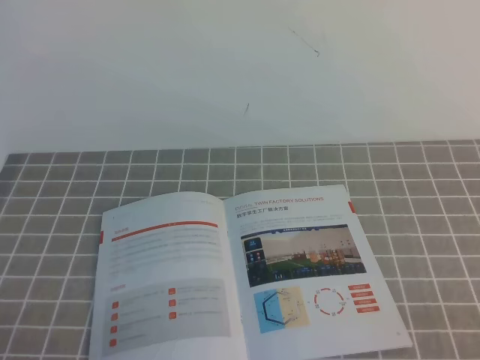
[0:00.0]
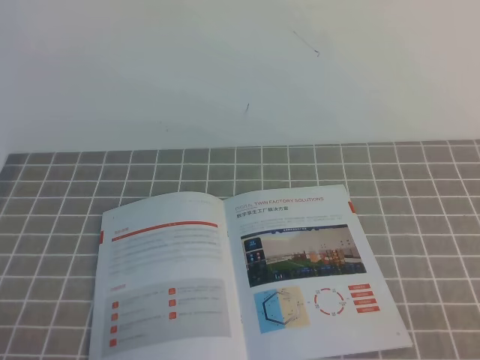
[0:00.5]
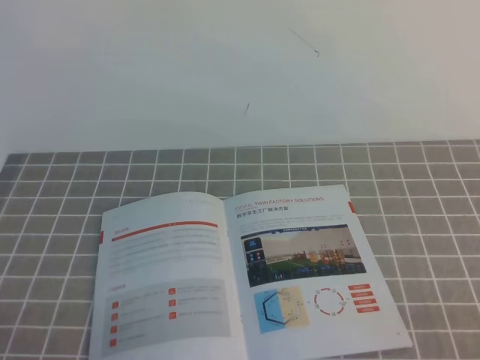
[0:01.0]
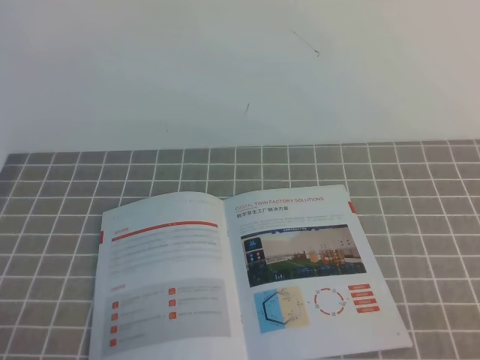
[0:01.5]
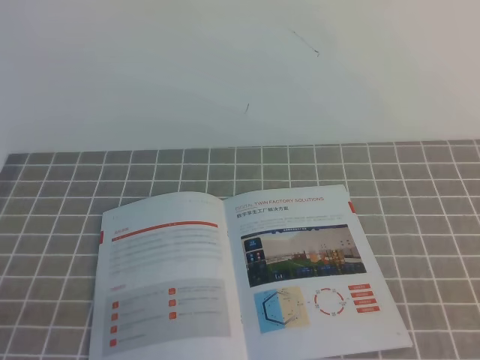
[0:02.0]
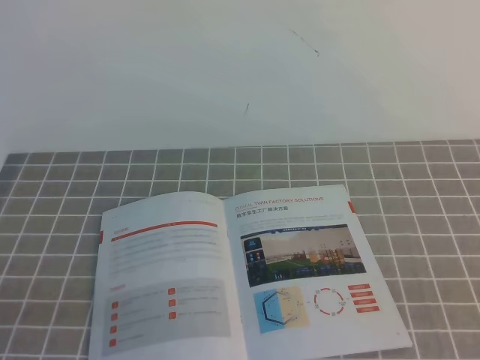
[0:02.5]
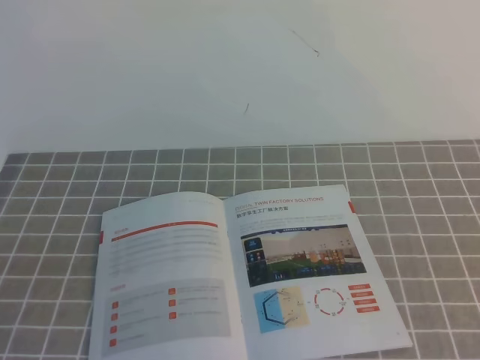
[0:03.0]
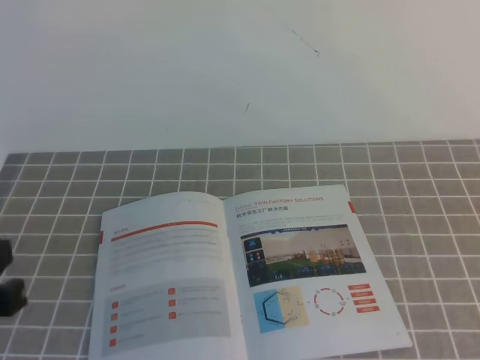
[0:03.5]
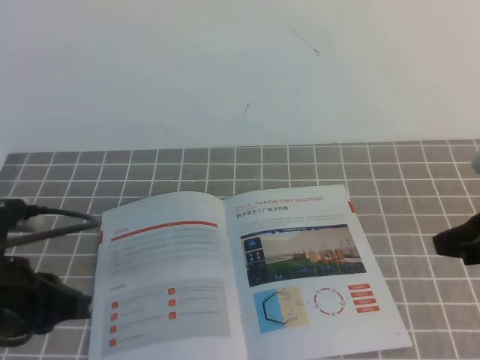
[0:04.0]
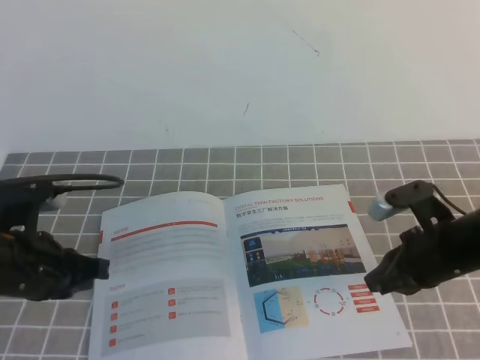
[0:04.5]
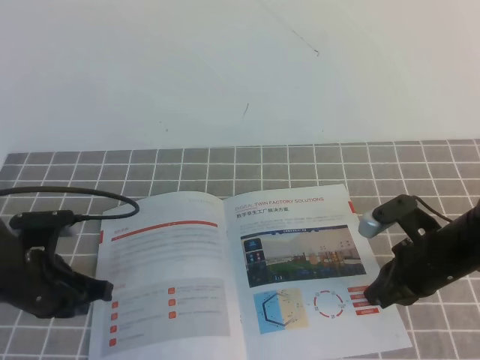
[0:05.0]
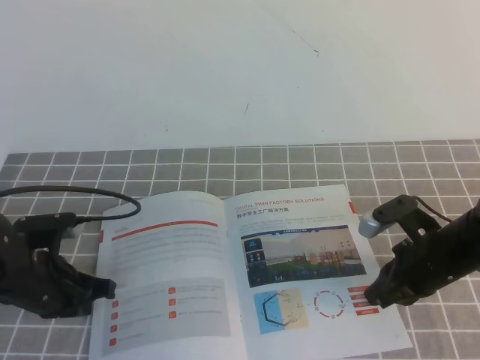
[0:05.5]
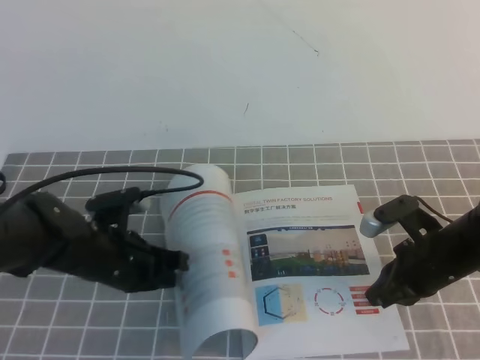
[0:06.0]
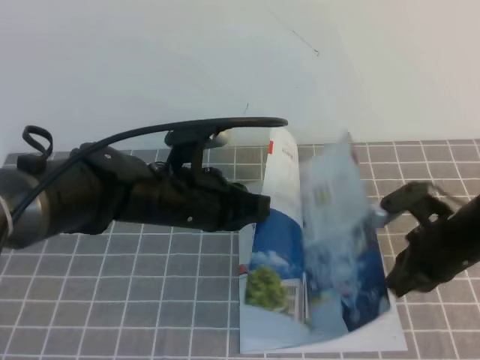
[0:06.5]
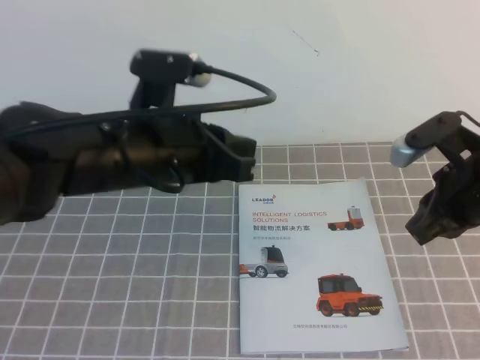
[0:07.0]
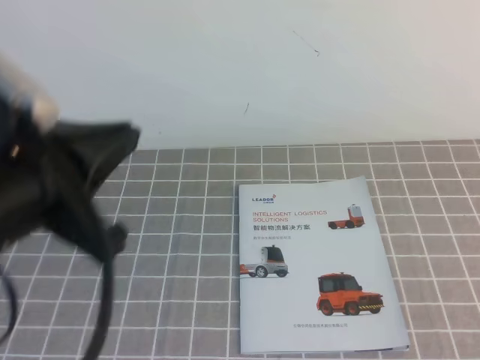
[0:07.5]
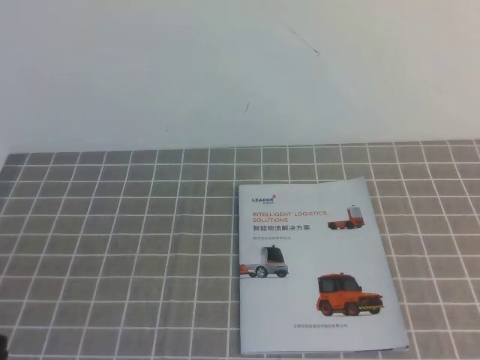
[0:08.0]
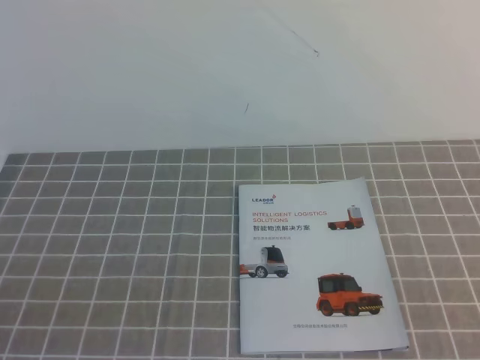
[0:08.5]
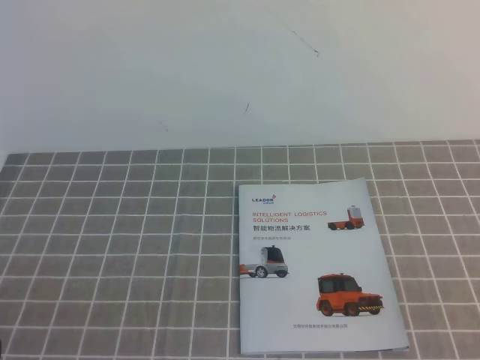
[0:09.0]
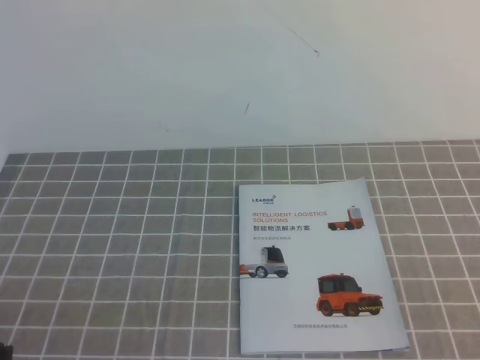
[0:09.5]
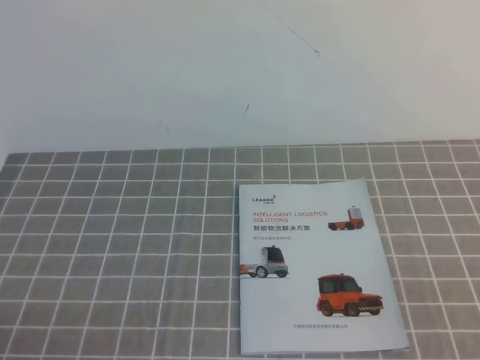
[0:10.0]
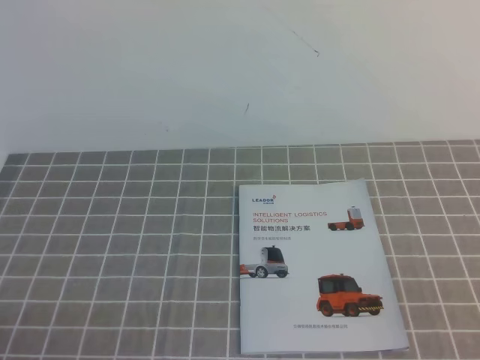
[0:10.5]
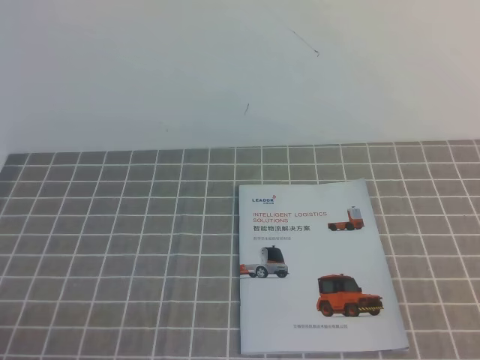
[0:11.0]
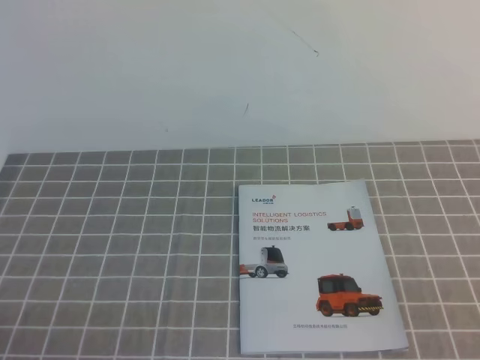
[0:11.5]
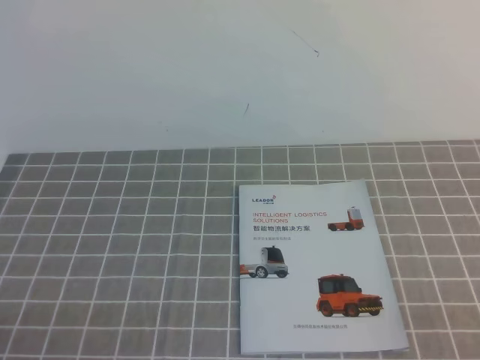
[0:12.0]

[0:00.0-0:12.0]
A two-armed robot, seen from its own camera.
Task of the whole recording: on the grey tablecloth, hold the book with one hand and close it with the other.
Step, 0:00.0 to 0:12.0: Close the open book.
0:02.0 to 0:04.0: The two grippers go some 15 cm forward.
0:04.0 to 0:06.0: The right gripper travels downward, forward and to the left by approximately 15 cm. The left gripper goes about 15 cm forward, downward and to the right.
0:06.0 to 0:08.0: The left gripper is displaced backward and upward by approximately 25 cm, while the right gripper travels upward and backward by some 35 cm.

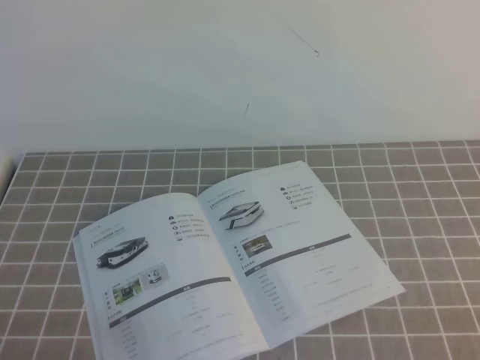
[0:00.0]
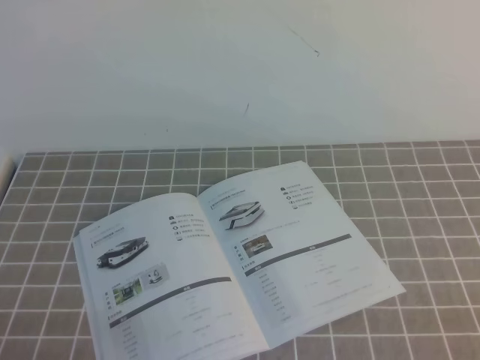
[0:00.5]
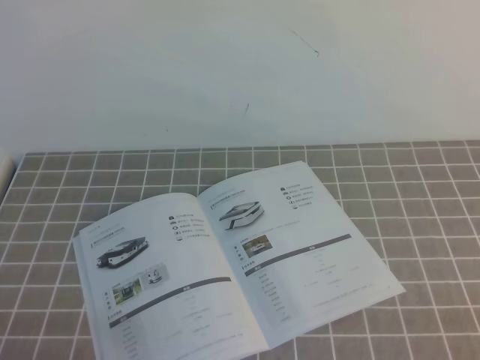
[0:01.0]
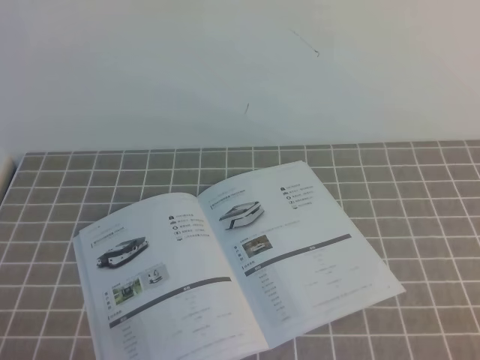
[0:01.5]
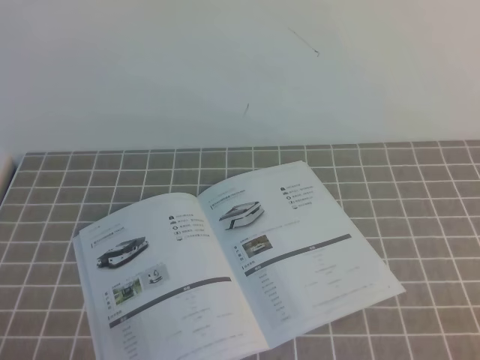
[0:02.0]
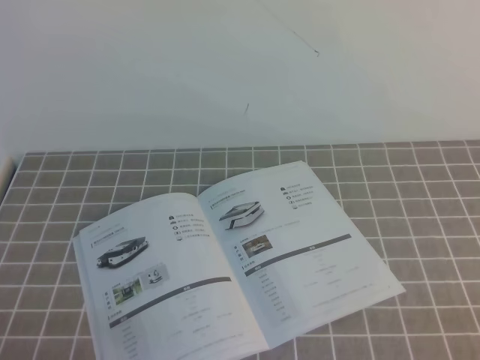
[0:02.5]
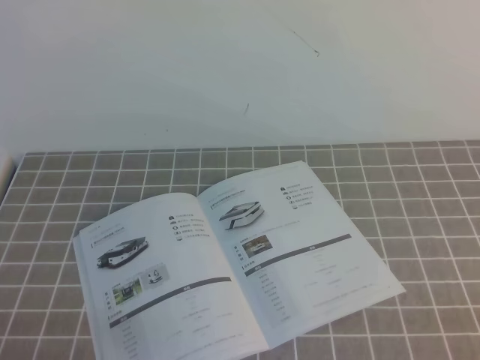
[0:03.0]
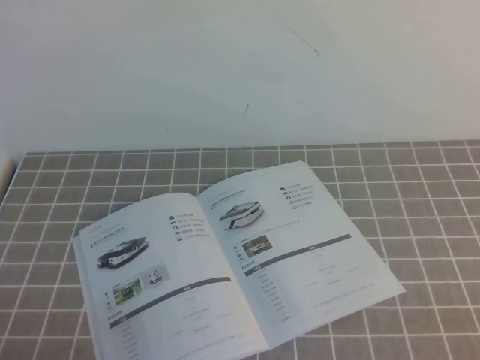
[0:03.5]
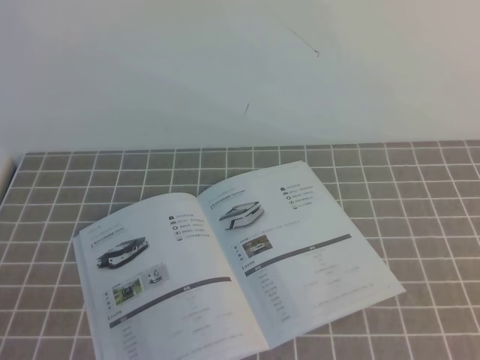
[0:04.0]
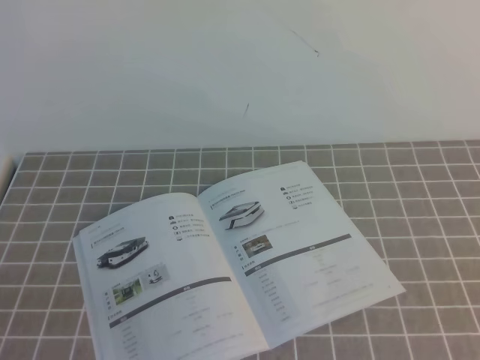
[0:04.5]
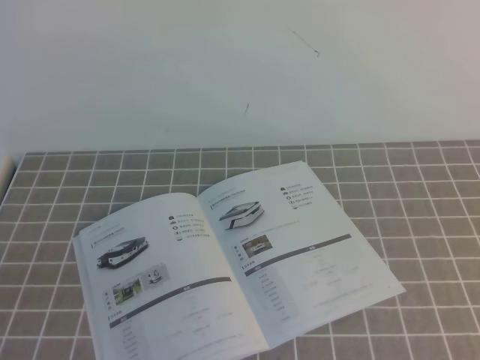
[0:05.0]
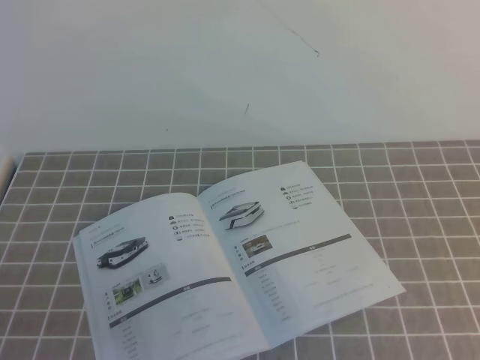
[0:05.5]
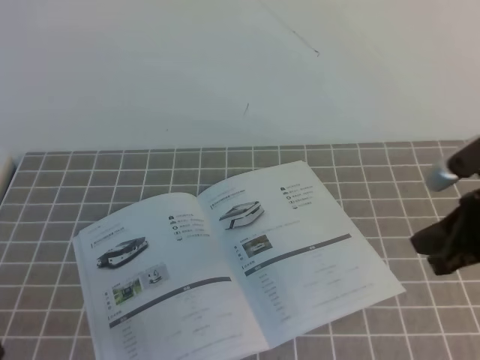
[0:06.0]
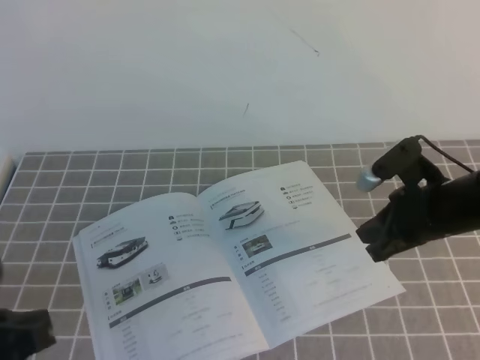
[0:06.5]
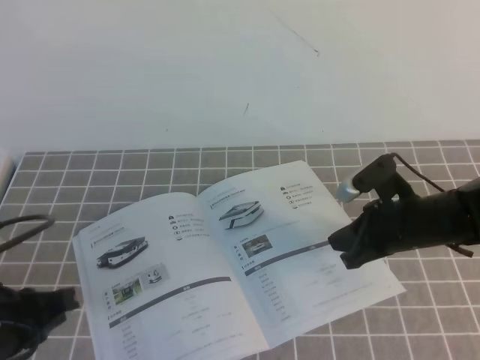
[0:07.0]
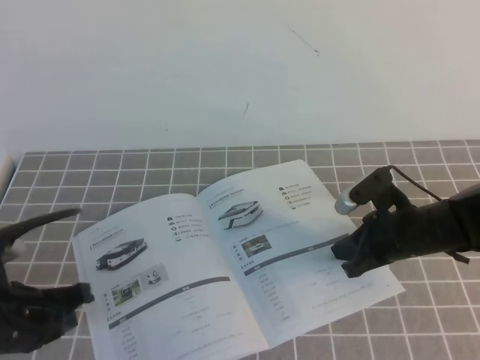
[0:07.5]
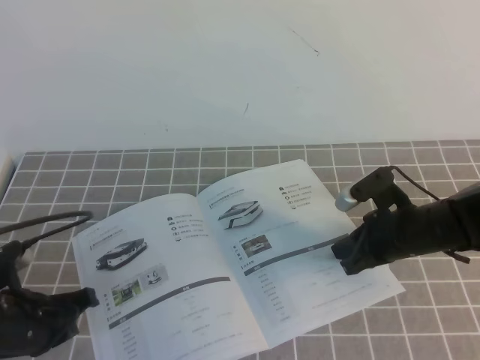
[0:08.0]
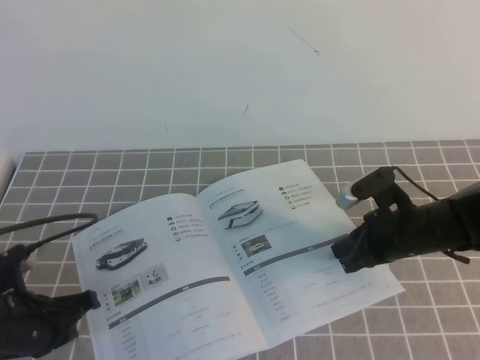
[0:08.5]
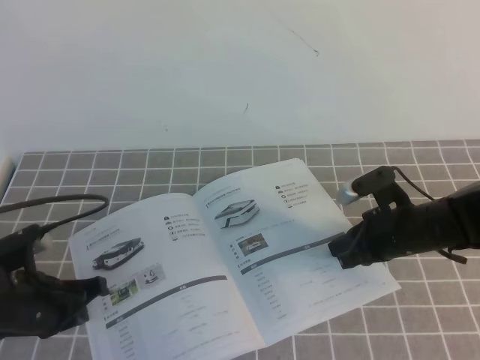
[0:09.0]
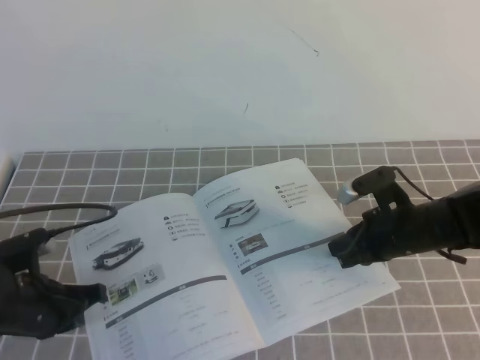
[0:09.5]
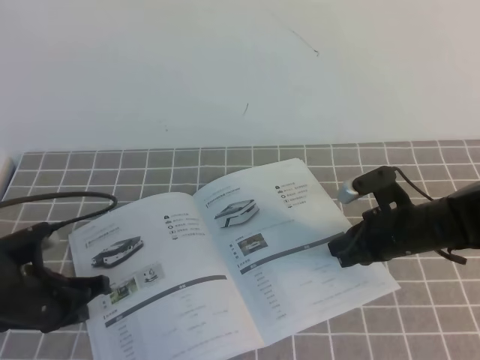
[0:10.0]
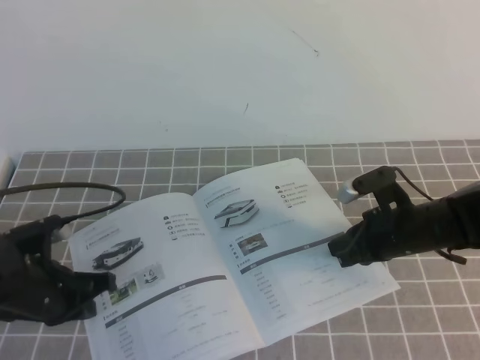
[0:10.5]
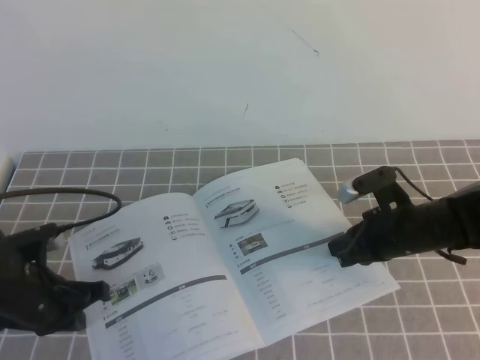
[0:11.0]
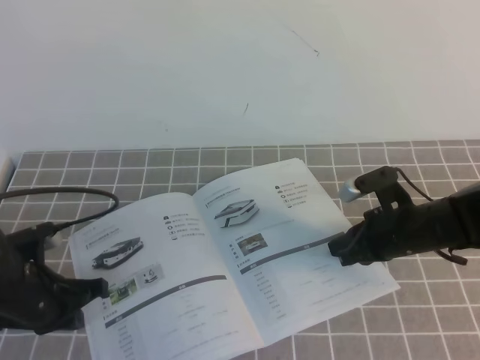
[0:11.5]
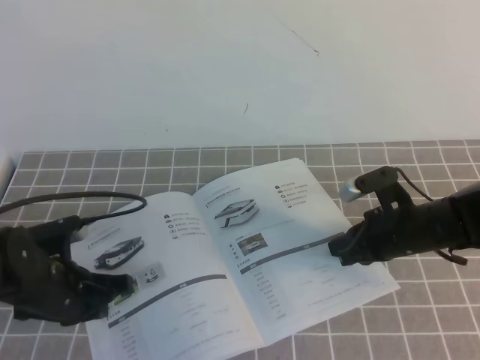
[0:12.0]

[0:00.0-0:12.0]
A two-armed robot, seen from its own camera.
Task of the whole recording: on the grey tablecloth, hold the book with one hand and close it with the other.
0:00.0 to 0:02.0: Neither gripper changes place.
0:04.0 to 0:06.0: The right gripper shifts about 25 cm forward.
0:06.0 to 0:08.0: The right gripper shifts some 15 cm downward, forward and to the left. Meanwhile the left gripper is displaced forward and downward by approximately 20 cm.
0:08.0 to 0:12.0: The grippers stay close to where they were, moving slightly.

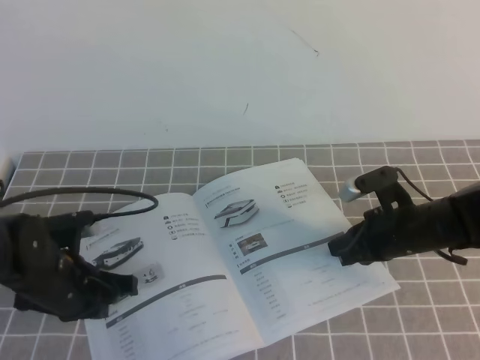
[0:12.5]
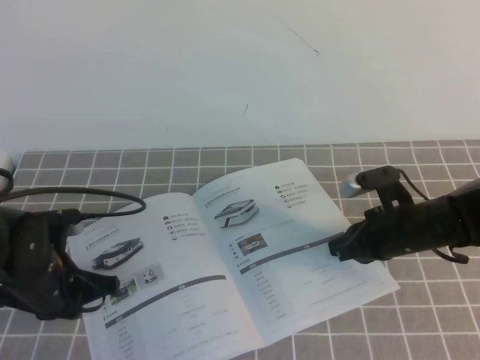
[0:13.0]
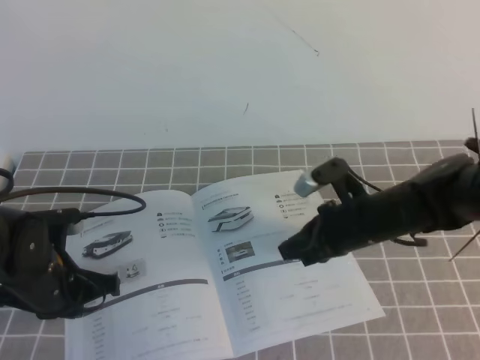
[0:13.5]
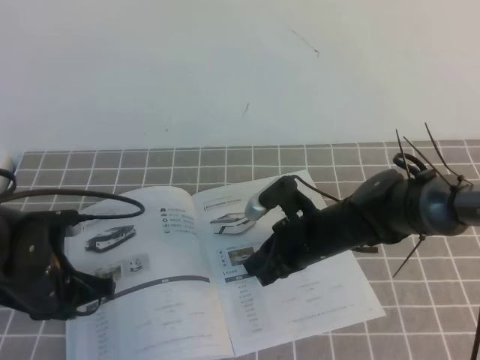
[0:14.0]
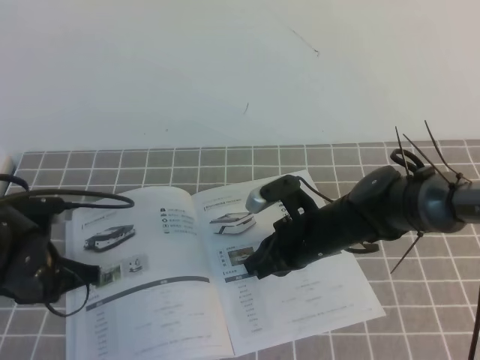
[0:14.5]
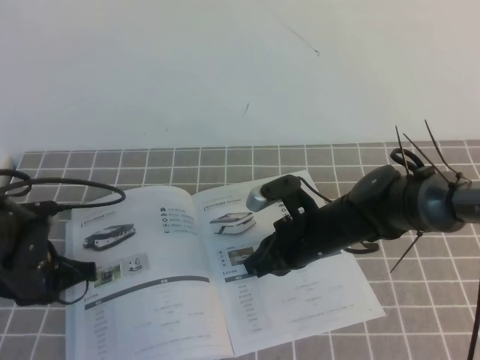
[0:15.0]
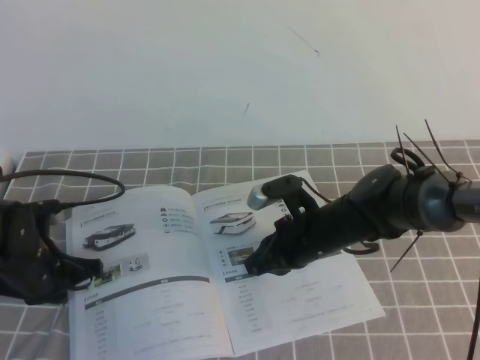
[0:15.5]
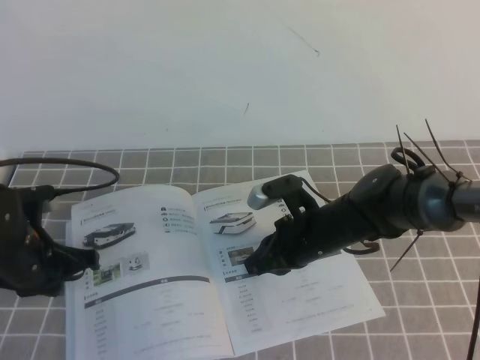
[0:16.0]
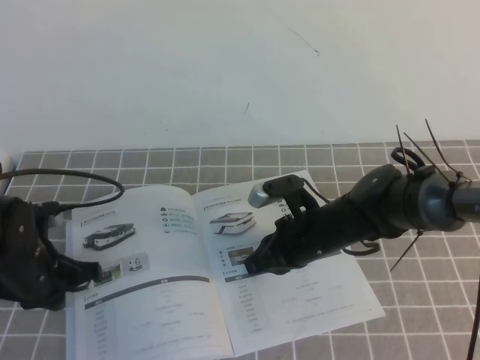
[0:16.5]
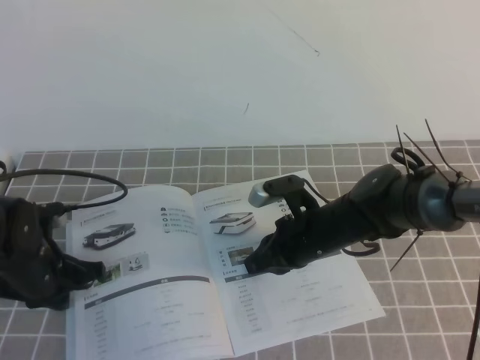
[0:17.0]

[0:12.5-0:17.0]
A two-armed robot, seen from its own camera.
Task of the whole recording: on the grey tablecloth, hold the book with one hand and close it with the other.
0:12.5 to 0:14.5: The right gripper shifts some 10 cm to the left.
0:14.5 to 0:17.0: There are only small adjustments of the grippers.
